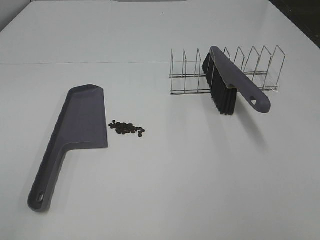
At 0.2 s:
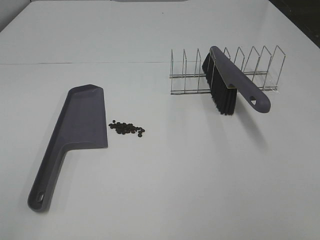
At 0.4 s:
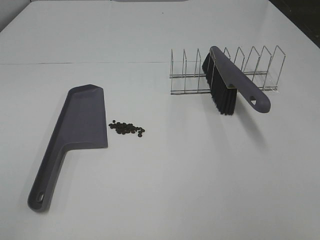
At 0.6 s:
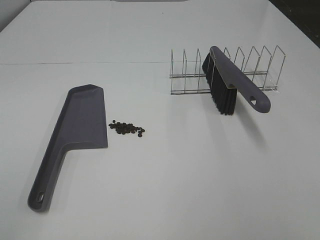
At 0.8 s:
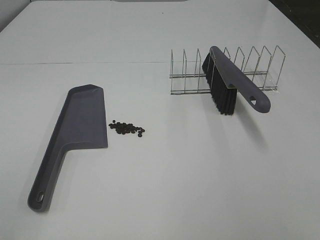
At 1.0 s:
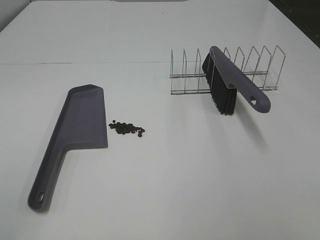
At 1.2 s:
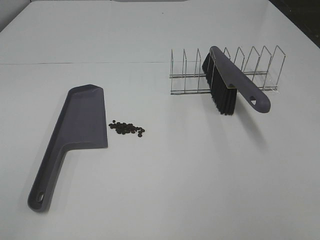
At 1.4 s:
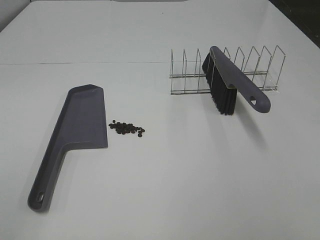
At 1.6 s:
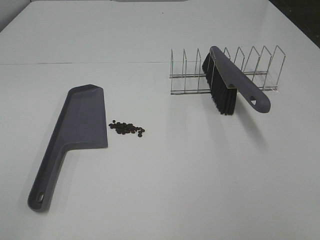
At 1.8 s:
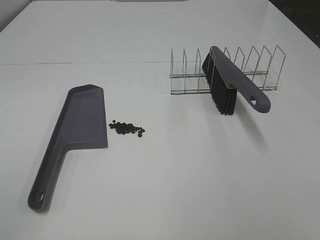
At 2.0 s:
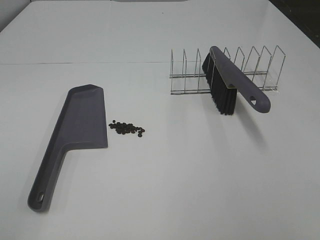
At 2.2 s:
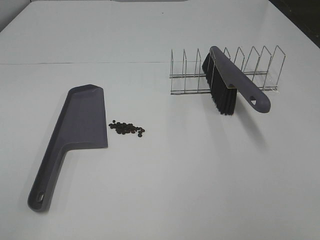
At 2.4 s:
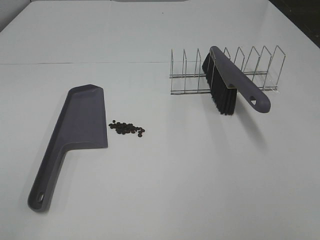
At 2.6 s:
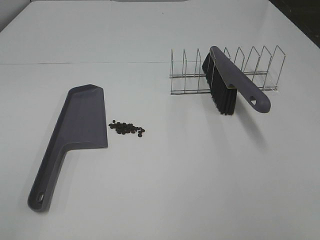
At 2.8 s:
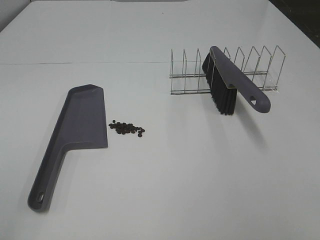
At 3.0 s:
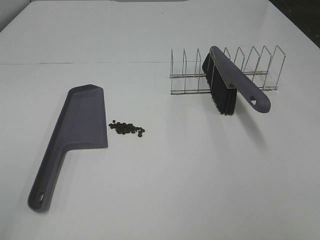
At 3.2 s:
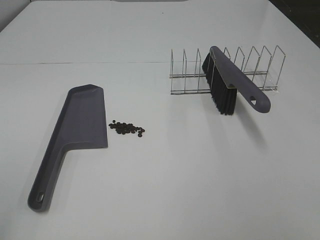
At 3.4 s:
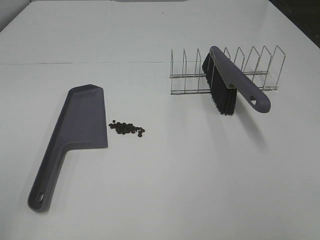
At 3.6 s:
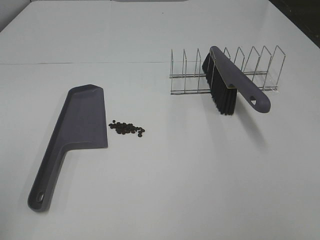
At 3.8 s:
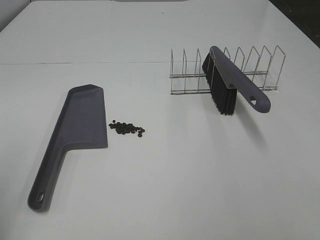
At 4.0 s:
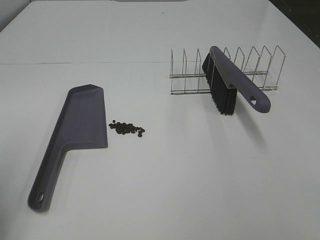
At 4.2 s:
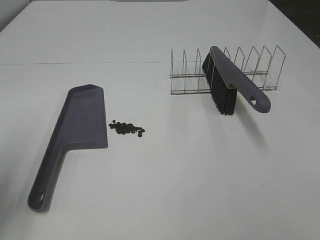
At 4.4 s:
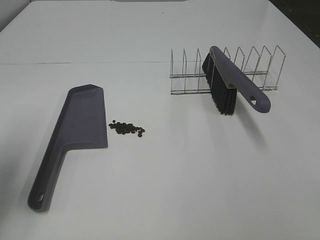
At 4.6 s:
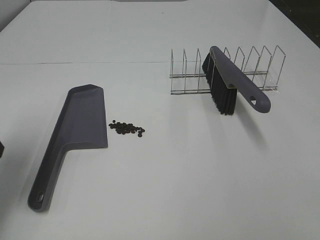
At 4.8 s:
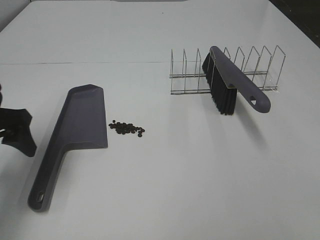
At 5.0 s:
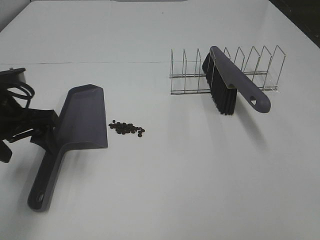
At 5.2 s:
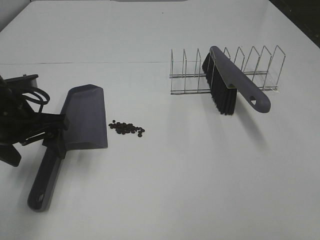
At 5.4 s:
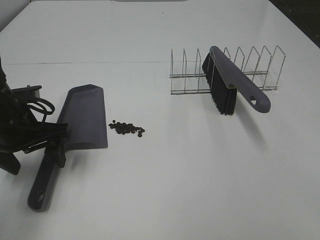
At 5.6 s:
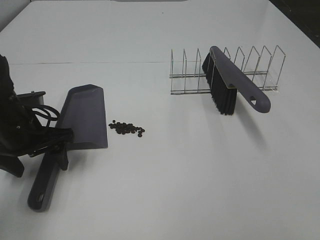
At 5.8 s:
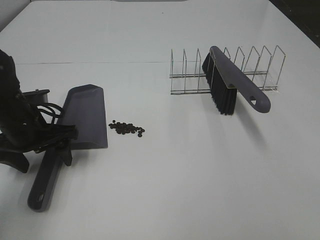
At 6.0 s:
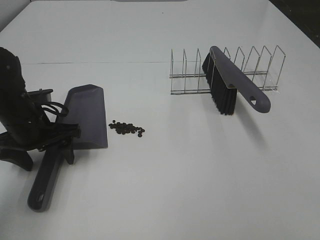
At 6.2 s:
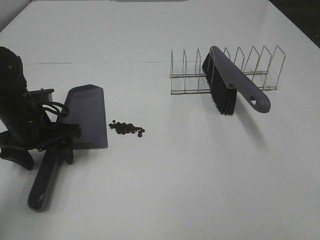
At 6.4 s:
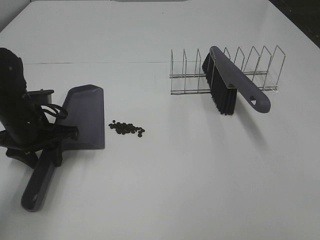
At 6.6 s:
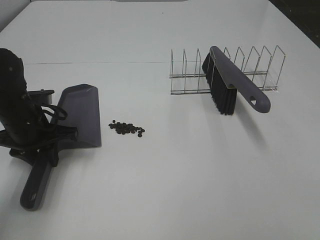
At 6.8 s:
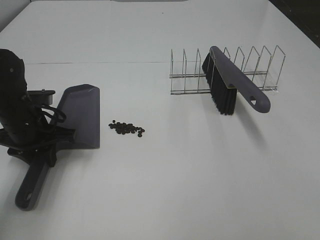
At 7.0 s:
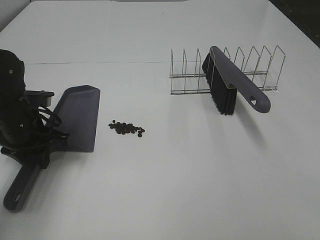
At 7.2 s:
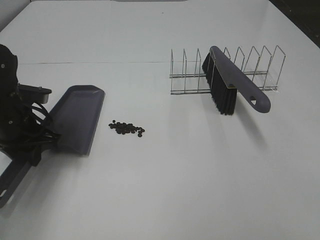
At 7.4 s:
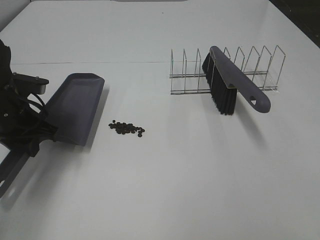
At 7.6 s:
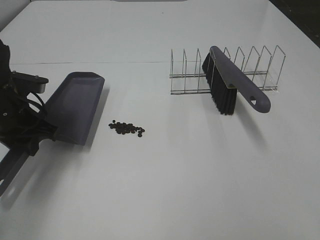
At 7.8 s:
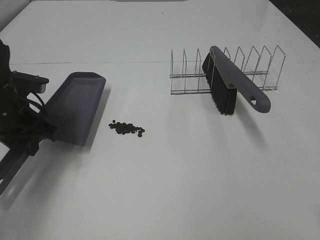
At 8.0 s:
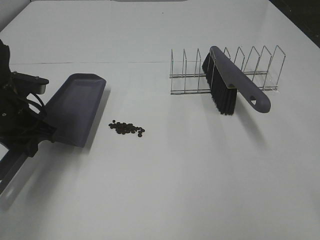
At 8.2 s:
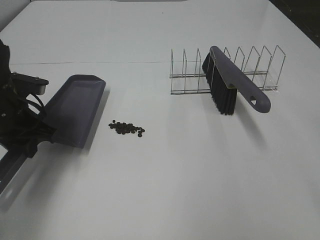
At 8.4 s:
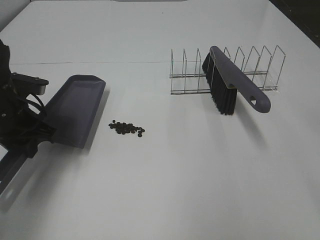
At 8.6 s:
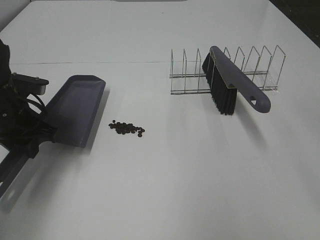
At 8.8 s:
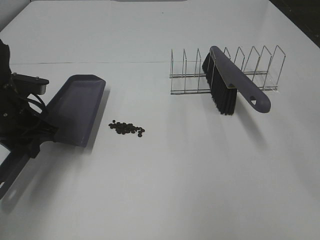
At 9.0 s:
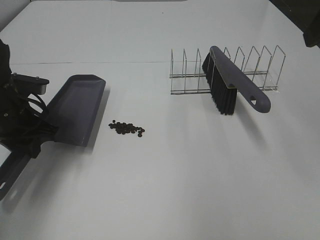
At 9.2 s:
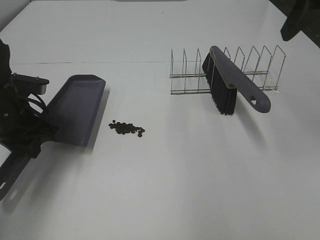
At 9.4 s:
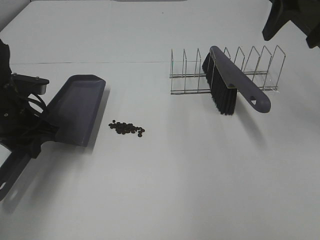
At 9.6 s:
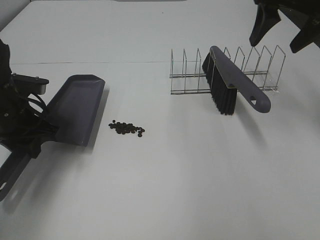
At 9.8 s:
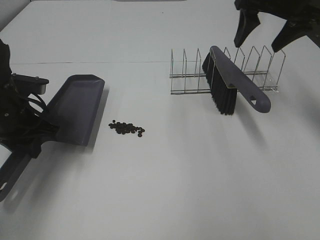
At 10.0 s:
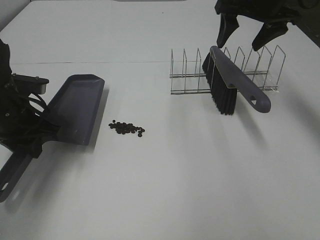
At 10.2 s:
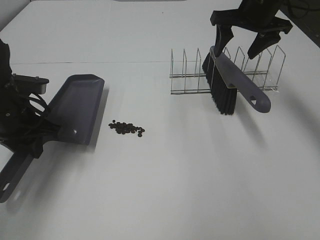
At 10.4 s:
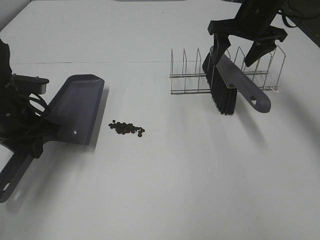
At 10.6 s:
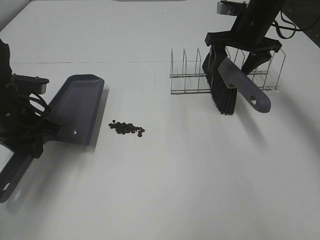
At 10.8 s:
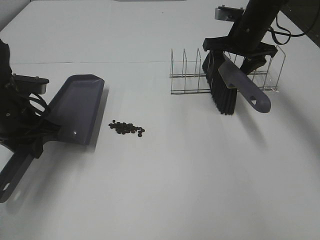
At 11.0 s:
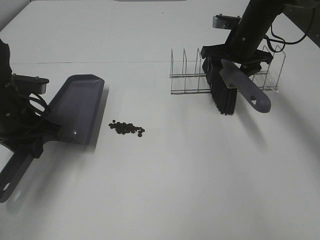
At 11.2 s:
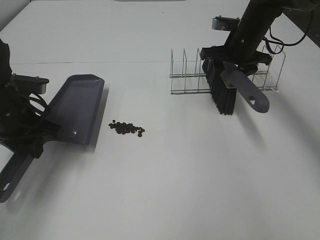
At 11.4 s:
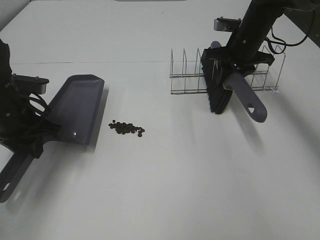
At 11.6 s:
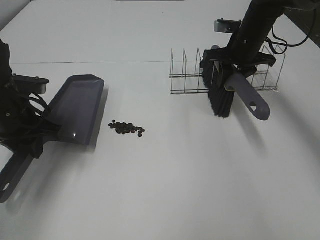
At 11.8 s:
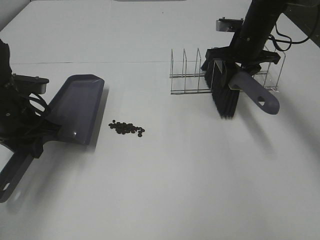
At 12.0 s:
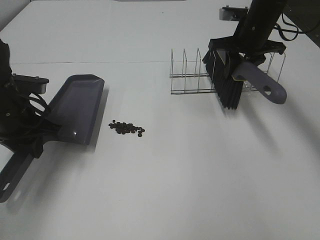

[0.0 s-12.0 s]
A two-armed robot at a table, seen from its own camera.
Task of the whole recording: Sweep Coffee Bean.
Step, 0.0 to 6.8 s: Left hand: grab the dustpan.
Step, 7.2 to 11.4 s: Right hand:grab the broom.
0.0 to 1.6 s: Both grippers stay about where they are.
3.0 to 4.4 s: The left gripper goes roughly 20 cm forward.
4.4 to 6.0 s: The left gripper heads downward, forward and to the right, covering roughly 20 cm.
6.0 to 7.6 s: The left gripper closes.
9.0 to 10.4 s: The right gripper travels forward and downward by approximately 25 cm.
10.4 to 12.0 s: The right gripper closes its fingers.

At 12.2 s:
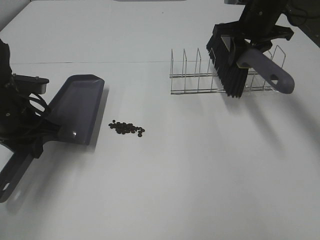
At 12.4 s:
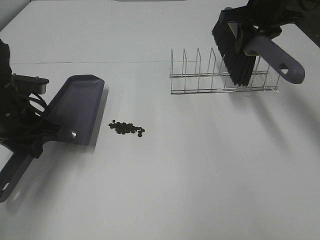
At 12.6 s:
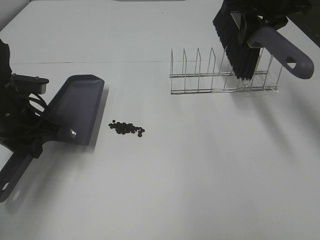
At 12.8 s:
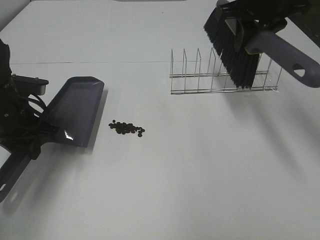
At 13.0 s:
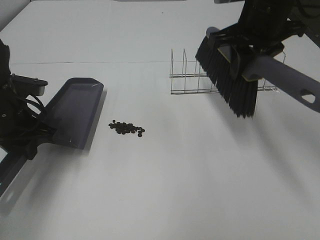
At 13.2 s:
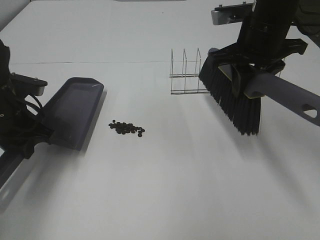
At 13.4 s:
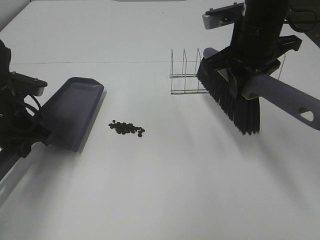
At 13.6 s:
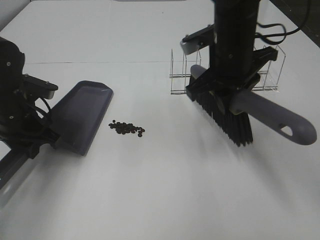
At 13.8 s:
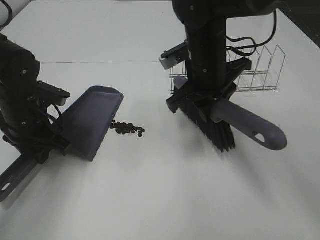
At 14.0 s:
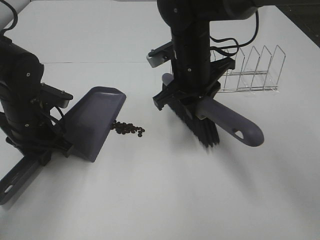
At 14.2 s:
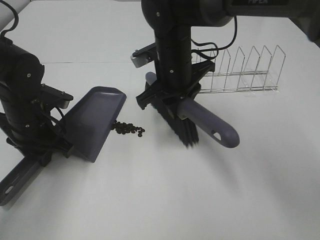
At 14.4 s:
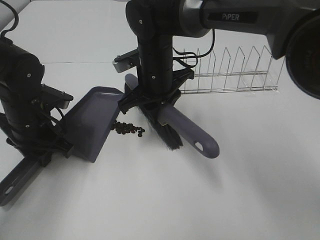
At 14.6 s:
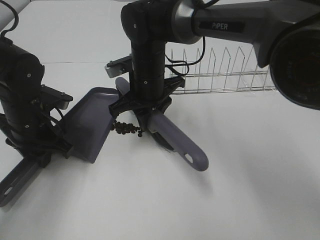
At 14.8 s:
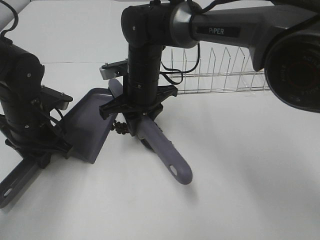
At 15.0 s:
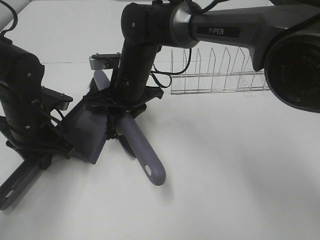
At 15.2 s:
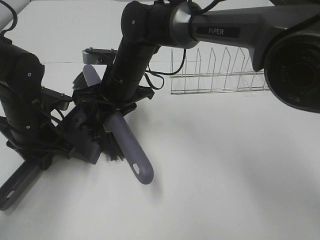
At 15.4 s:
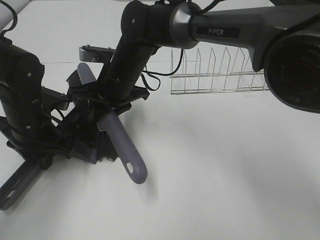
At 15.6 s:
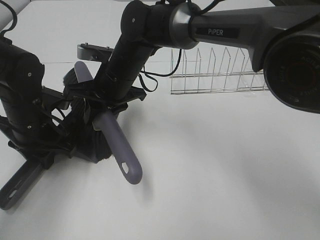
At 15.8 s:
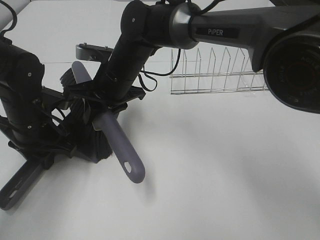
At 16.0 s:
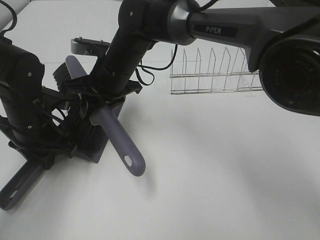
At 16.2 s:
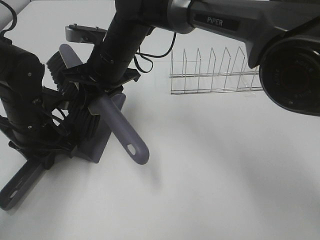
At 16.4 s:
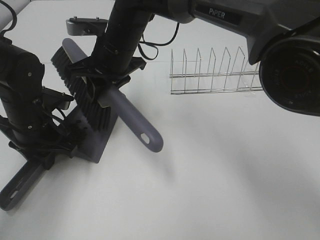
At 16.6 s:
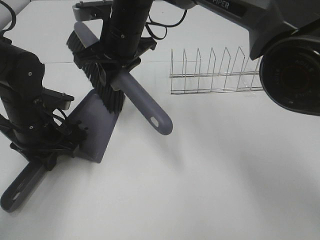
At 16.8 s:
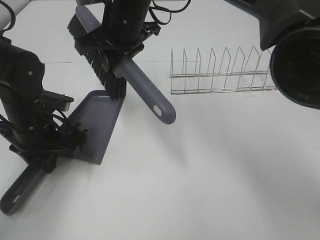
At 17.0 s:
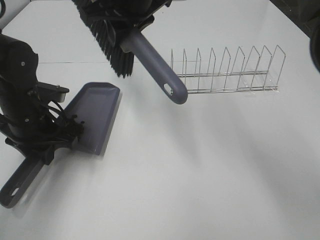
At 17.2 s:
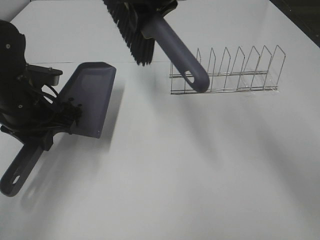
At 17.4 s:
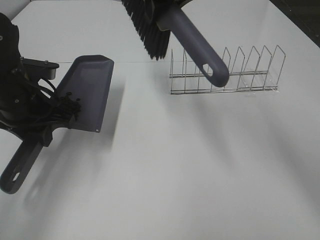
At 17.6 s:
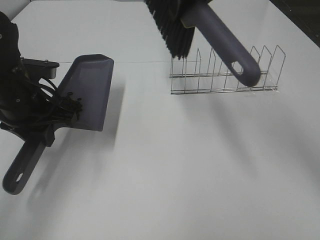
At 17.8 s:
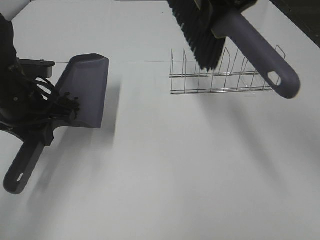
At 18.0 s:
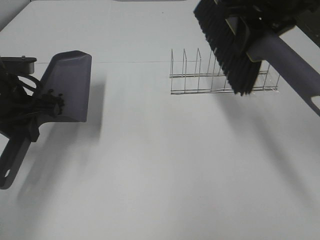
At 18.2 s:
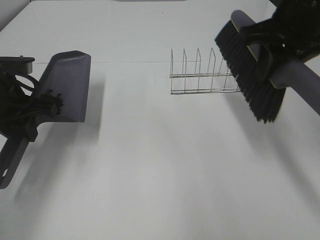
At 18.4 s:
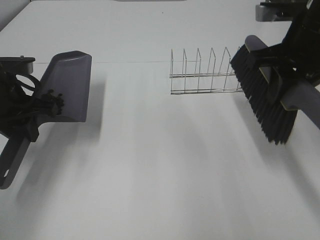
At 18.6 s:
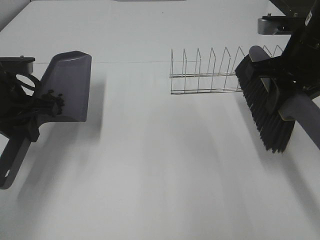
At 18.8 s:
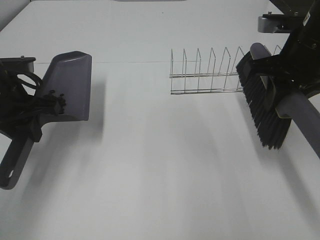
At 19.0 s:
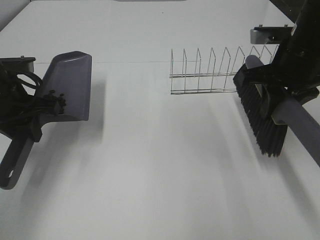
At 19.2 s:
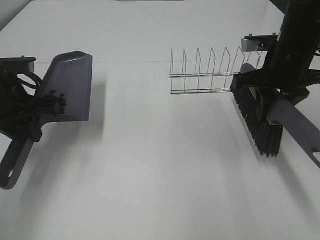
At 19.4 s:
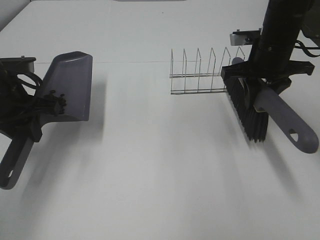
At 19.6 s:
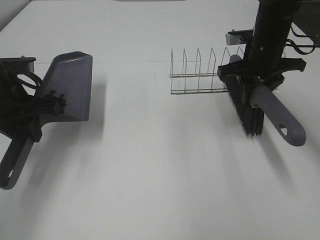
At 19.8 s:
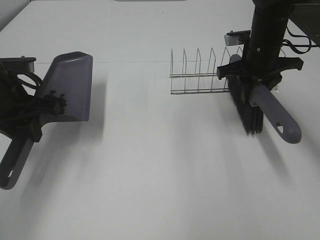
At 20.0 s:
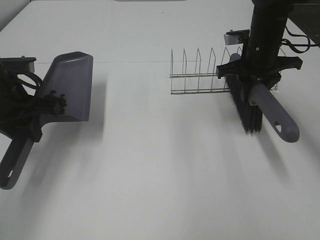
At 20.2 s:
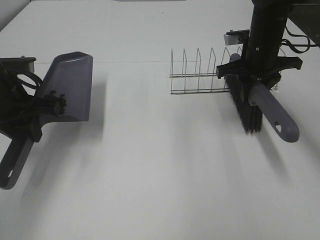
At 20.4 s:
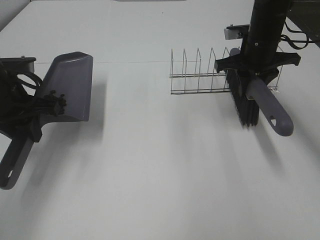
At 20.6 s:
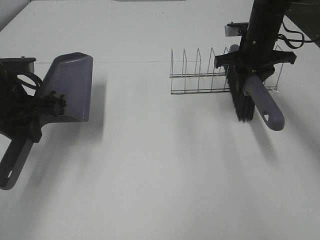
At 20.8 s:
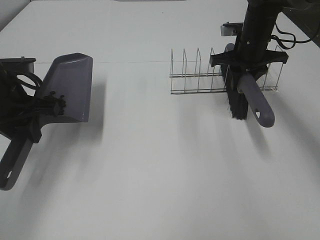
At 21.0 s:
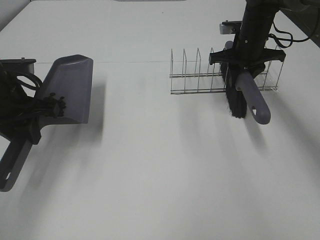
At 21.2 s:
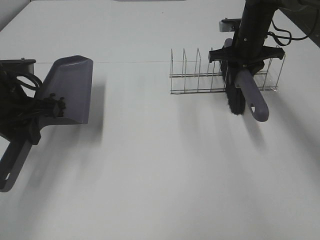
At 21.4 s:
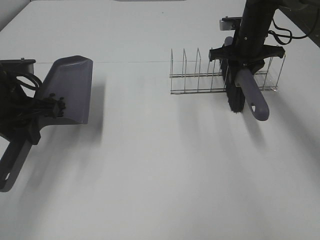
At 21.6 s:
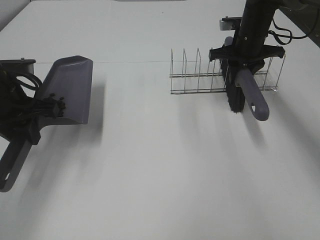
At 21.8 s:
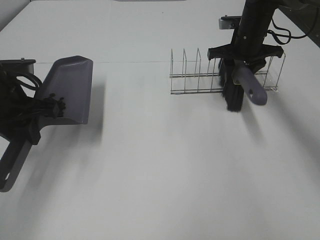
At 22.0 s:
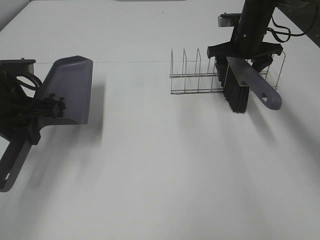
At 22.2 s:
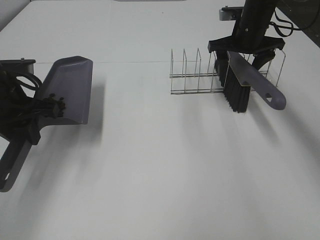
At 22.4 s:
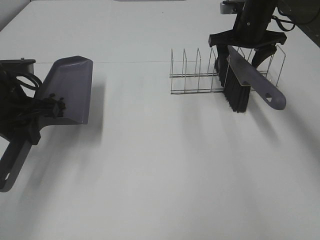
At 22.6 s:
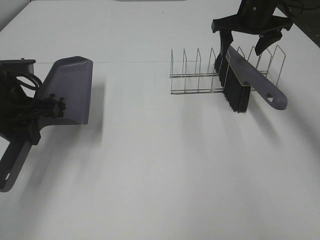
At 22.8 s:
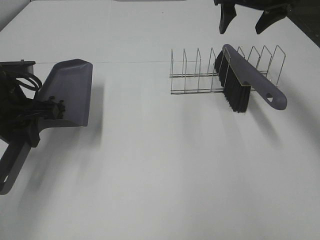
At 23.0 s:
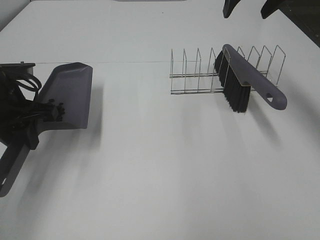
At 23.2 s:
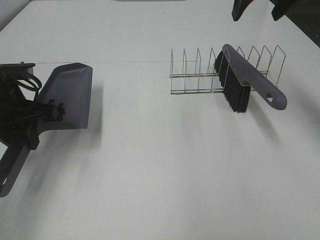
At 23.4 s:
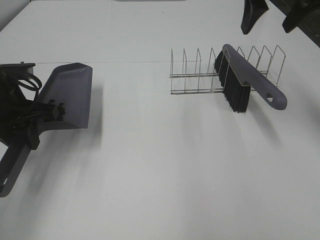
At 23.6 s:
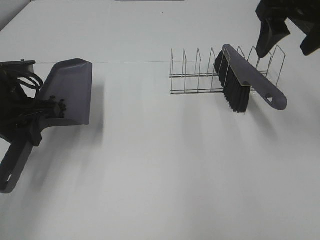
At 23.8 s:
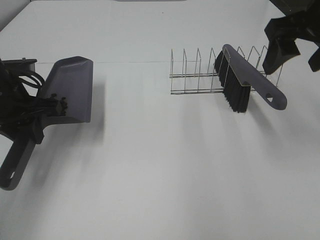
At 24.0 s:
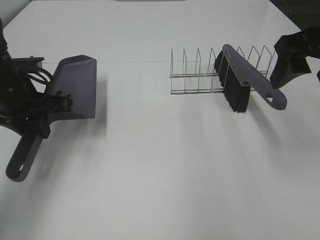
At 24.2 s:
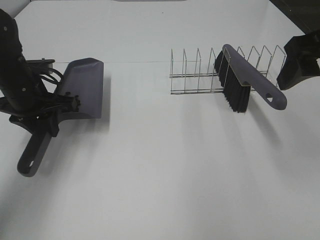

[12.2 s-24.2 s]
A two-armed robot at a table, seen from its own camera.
Task of the whole recording: Sweep Coffee Bean.
Step, 12.2 to 16.4 s: Right hand:sweep the coffee beans into the dustpan.
Step, 16.6 to 22.4 s: Right hand:place the broom on the rack.
12.2 to 13.8 s: The right gripper moves to the left and backward, some 15 cm.
13.8 to 15.2 s: The right gripper is displaced to the left by approximately 15 cm.
15.2 to 16.6 s: The right gripper heads upward, covering some 10 cm.
16.6 to 18.2 s: The left gripper travels upward by some 5 cm. The right gripper heads to the right, covering about 25 cm.
18.2 to 19.8 s: The right gripper heads downward and forward, covering some 15 cm.
19.8 to 21.2 s: The right gripper moves forward, some 5 cm.
21.2 to 22.6 s: The right gripper heads upward, covering some 10 cm, and opens up.
22.6 to 24.2 s: The left gripper moves about 5 cm, while the right gripper shifts about 25 cm backward.
